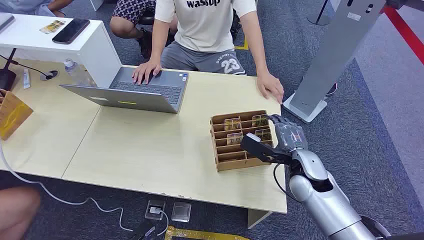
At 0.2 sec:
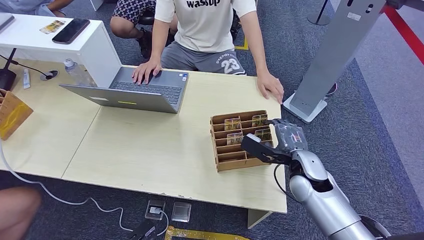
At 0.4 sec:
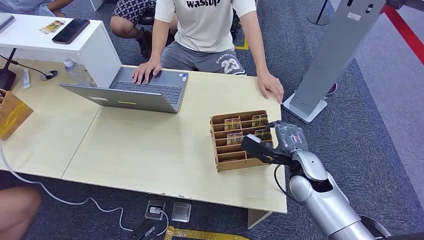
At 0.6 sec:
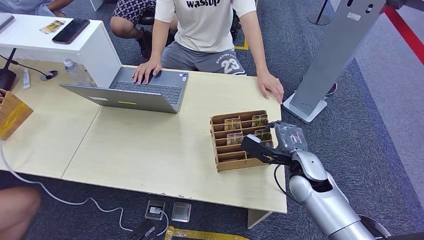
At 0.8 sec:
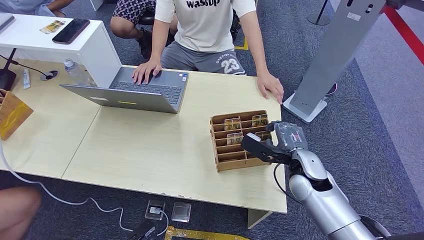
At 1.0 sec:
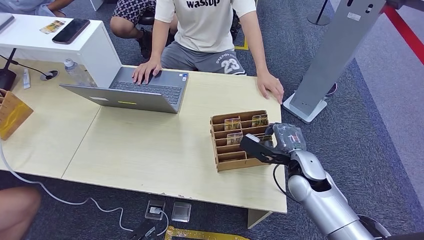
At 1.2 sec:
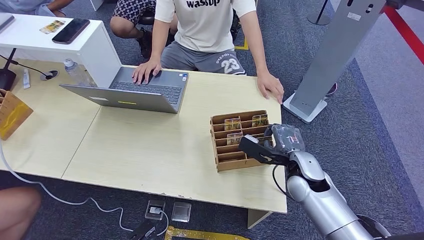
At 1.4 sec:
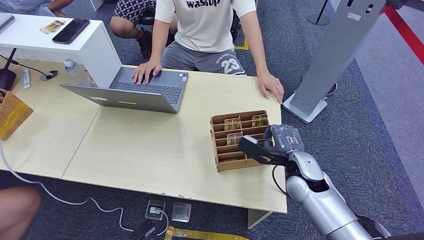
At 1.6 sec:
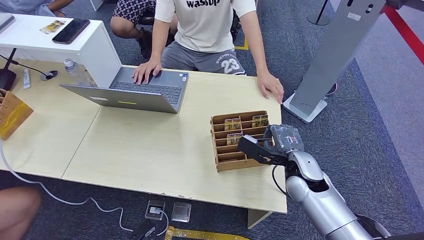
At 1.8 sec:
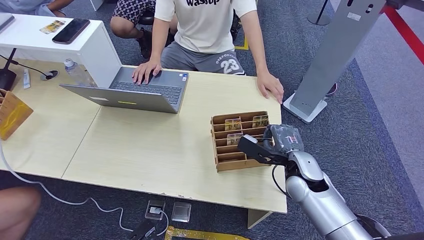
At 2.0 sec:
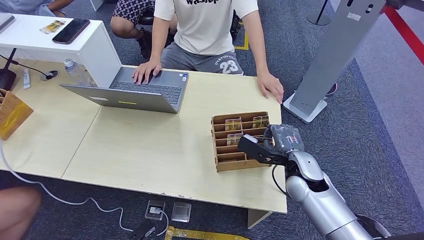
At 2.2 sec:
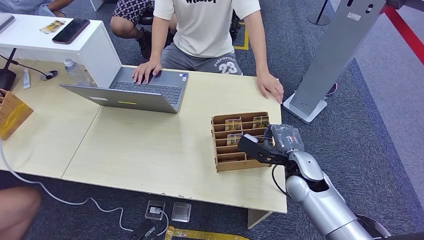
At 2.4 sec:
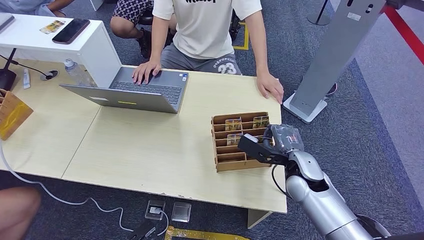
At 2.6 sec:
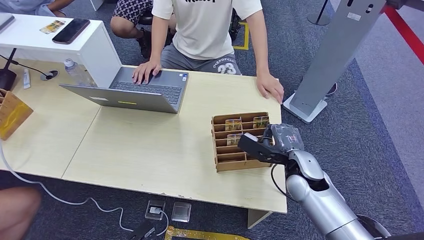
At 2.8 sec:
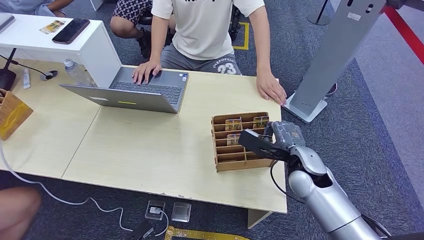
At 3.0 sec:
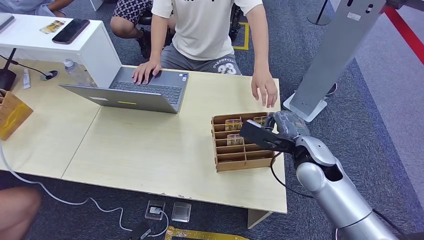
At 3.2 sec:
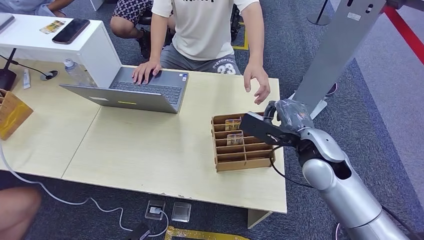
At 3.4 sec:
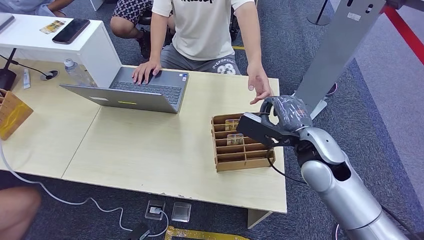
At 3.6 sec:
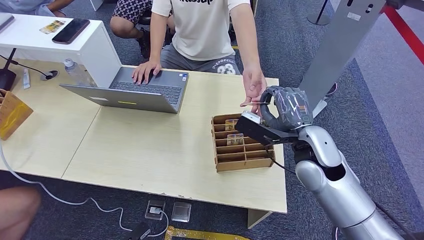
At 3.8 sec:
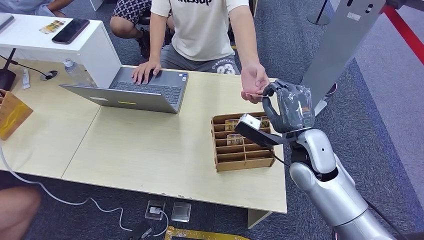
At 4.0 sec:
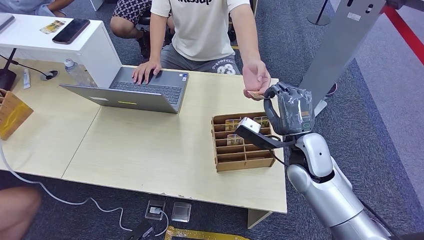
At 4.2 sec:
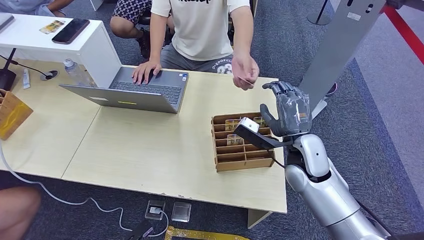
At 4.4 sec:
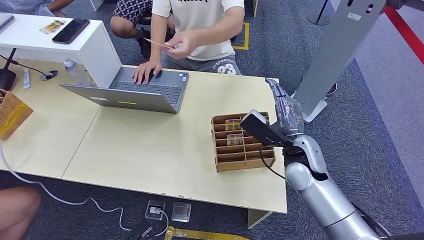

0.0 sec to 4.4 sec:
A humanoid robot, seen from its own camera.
Step, 0.0 sec to 3.0 sec: Pick up the room card from the card holder.
Step, 3.2 sec to 4.4 sec: Hand the room card to the target.
1.4 sec to 3.0 sec: The right hand is displaced upward by approximately 5 cm.

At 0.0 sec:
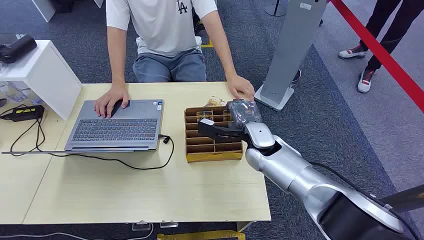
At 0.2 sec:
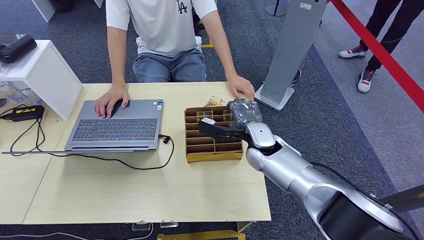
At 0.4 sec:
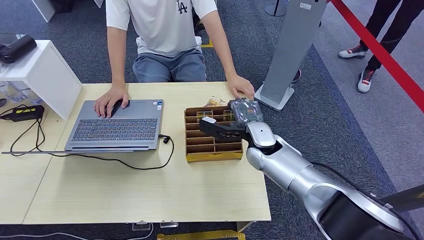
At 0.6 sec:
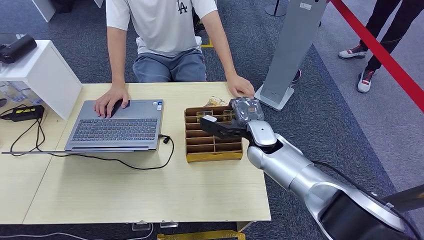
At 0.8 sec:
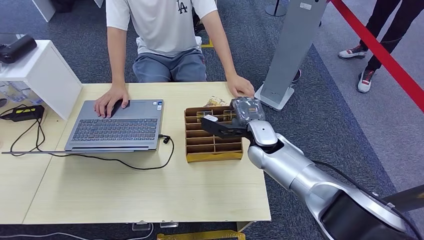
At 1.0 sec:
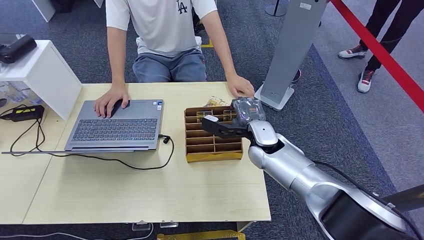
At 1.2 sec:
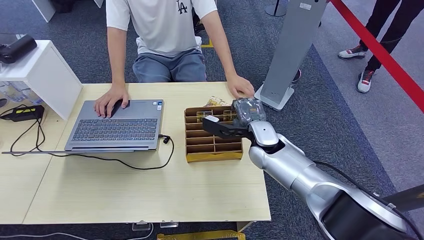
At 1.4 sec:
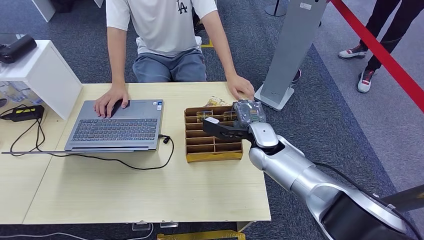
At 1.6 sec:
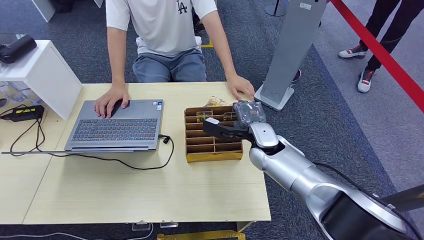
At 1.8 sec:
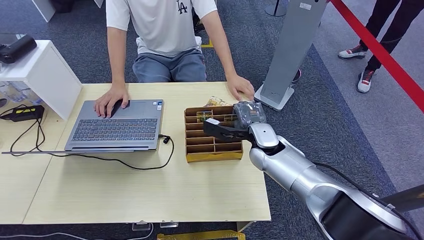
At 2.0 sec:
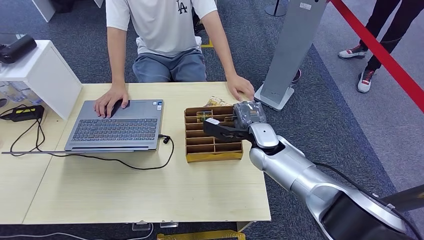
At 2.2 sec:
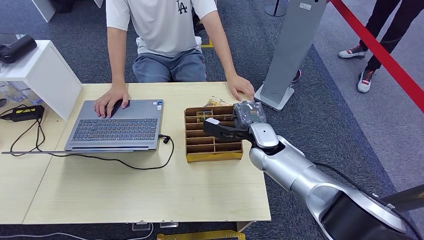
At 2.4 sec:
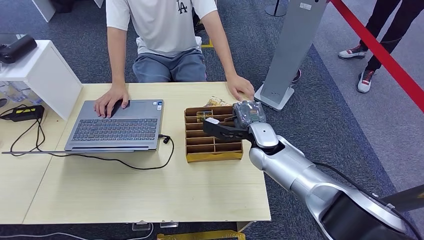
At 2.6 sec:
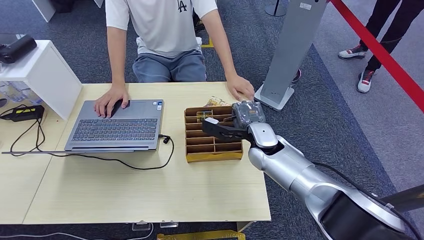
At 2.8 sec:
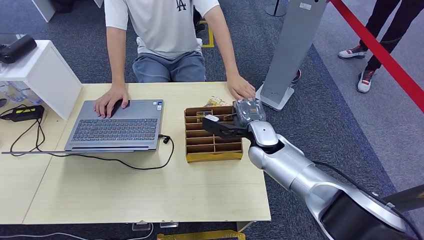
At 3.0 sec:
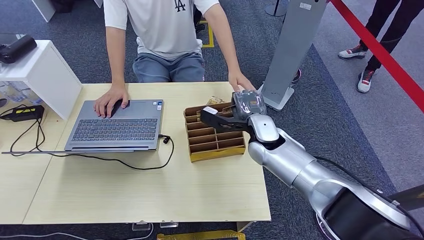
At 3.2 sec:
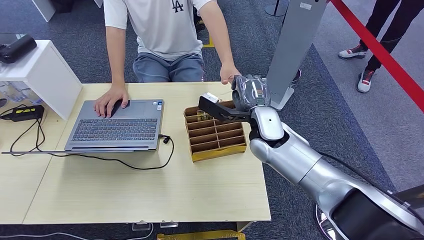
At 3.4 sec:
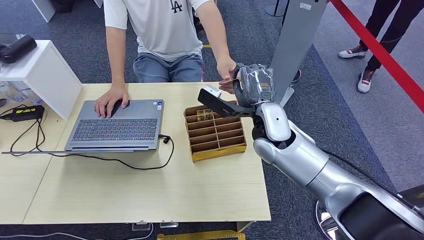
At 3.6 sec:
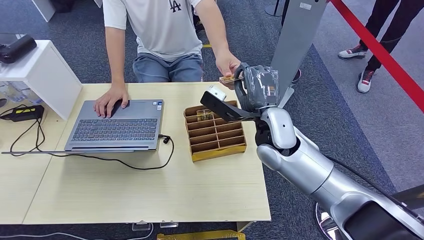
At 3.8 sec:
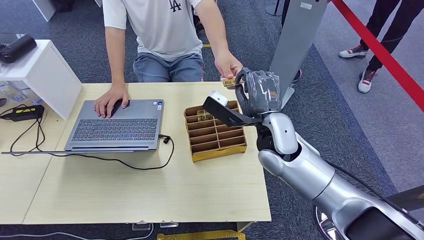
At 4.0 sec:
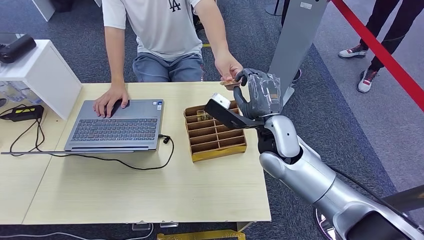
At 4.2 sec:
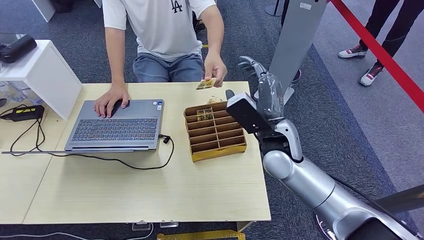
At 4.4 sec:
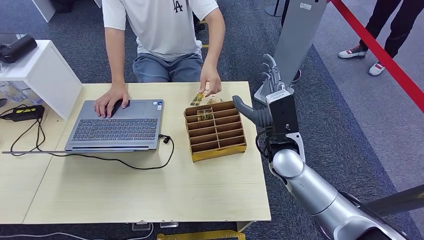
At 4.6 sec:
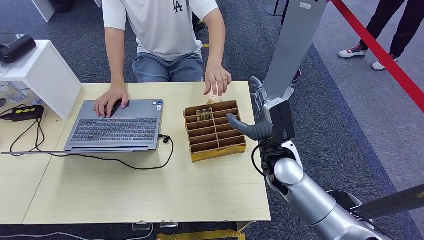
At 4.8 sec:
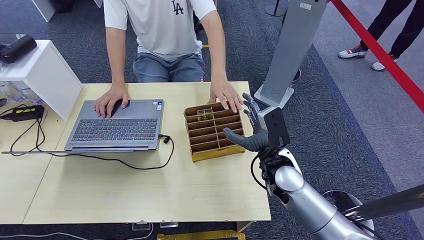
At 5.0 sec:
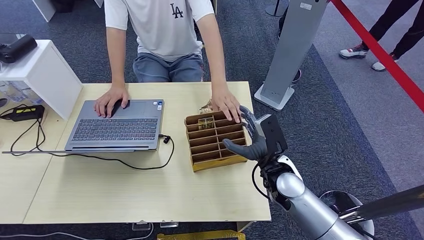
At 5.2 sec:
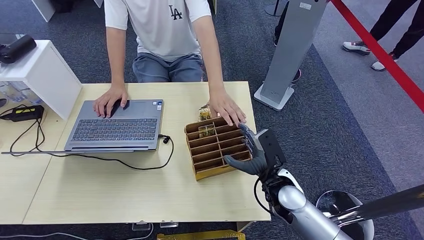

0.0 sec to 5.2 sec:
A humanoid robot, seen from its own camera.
Step, 0.0 sec to 3.0 sec: Pick up the room card from the card holder.
Step, 3.2 sec to 5.2 sec: Hand the room card to the target.
1.8 sec to 3.4 sec: The right hand shifts some 10 cm upward.
